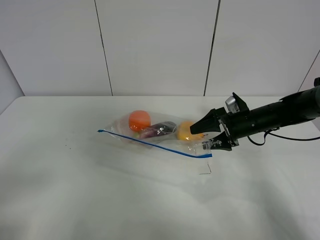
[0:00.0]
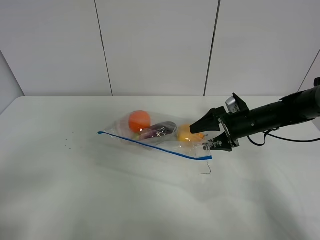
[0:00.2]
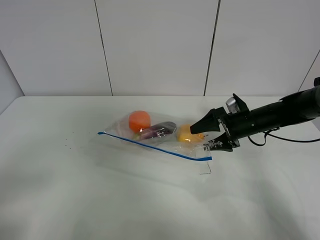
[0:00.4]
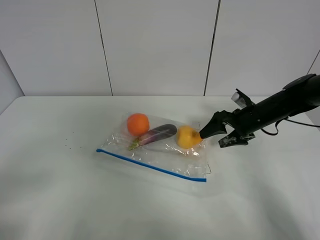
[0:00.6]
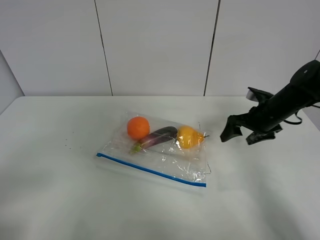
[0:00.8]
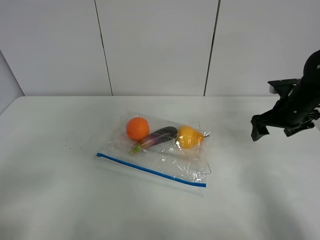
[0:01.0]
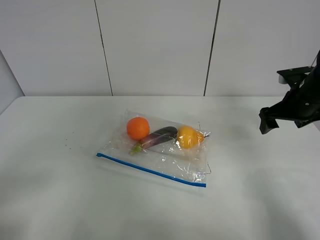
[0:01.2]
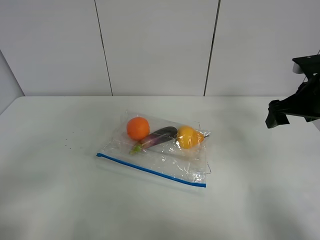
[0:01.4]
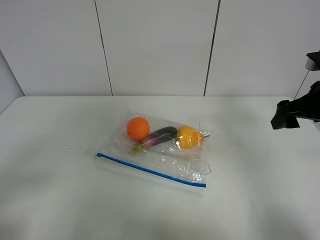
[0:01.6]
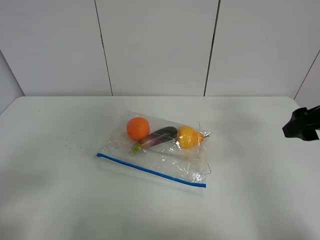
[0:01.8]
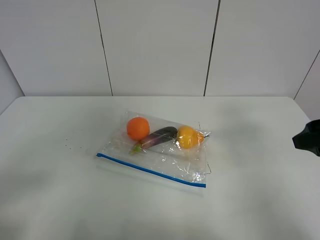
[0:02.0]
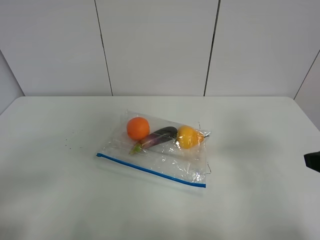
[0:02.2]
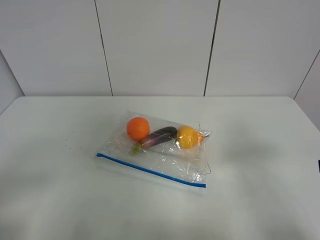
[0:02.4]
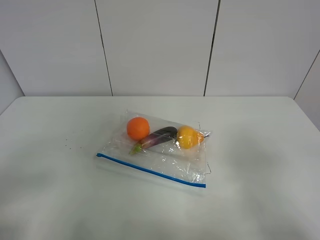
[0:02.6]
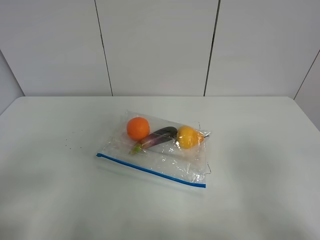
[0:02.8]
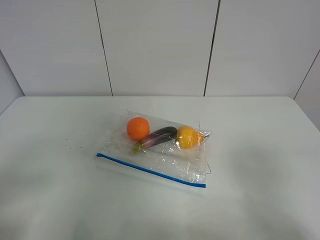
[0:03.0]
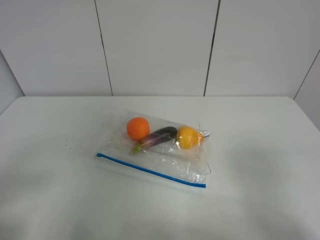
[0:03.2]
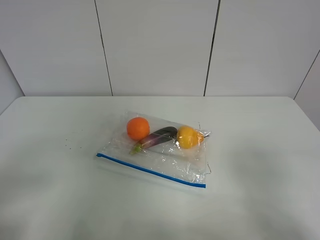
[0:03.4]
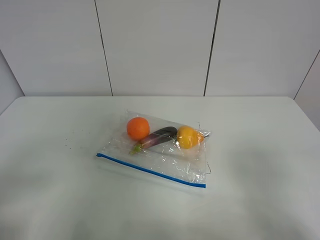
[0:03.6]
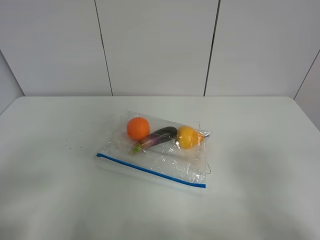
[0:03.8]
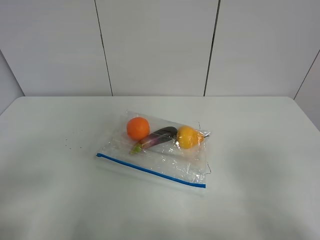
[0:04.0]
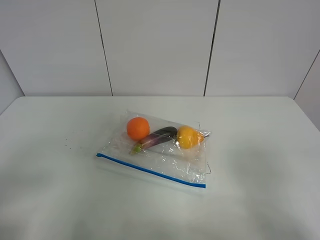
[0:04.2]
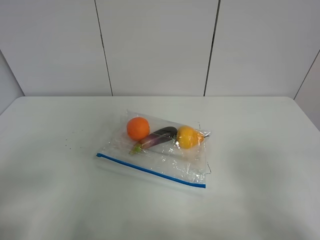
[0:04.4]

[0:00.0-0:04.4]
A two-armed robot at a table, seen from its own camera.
0:00.0 to 0:01.4: The right gripper travels upward, to the right and backward by about 15 cm.
0:01.4 to 0:03.0: The right gripper moves backward, some 30 cm.
0:03.0 to 0:04.4: The two grippers keep their place.

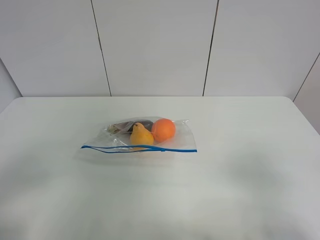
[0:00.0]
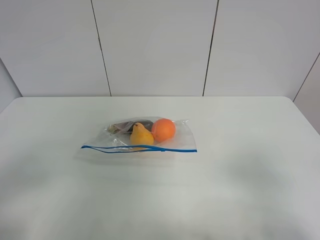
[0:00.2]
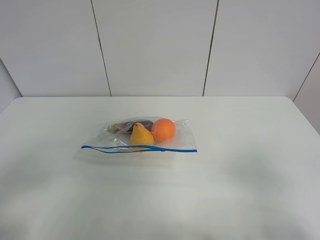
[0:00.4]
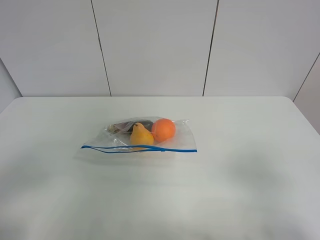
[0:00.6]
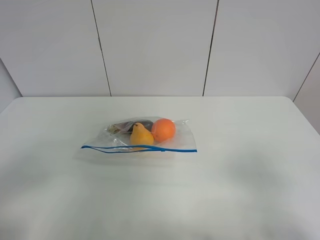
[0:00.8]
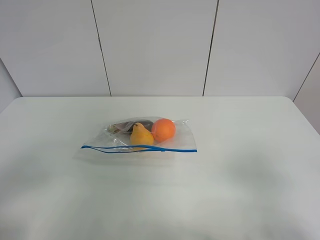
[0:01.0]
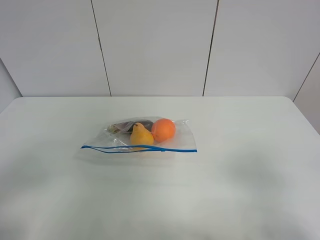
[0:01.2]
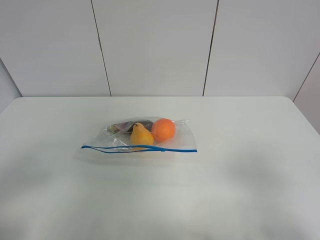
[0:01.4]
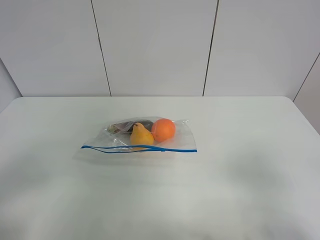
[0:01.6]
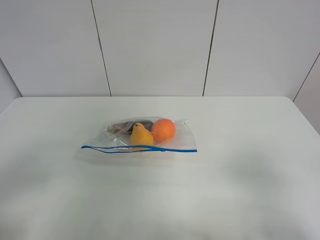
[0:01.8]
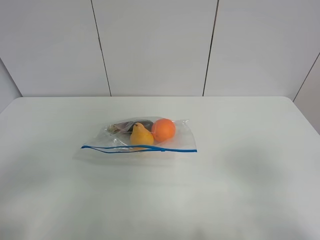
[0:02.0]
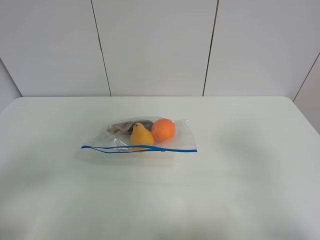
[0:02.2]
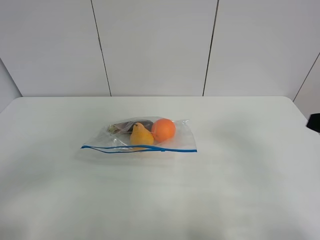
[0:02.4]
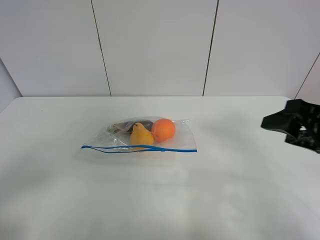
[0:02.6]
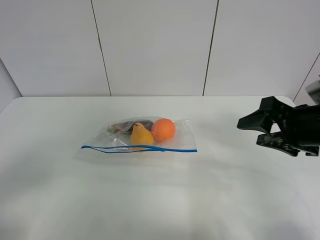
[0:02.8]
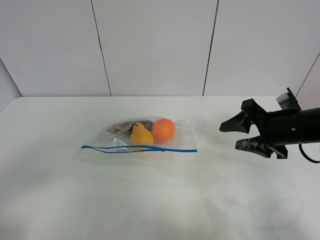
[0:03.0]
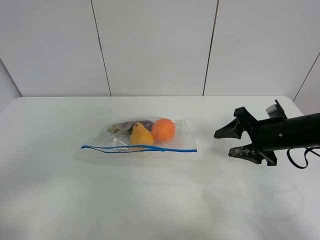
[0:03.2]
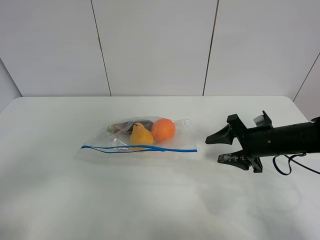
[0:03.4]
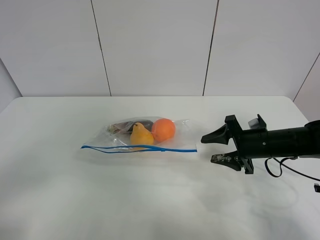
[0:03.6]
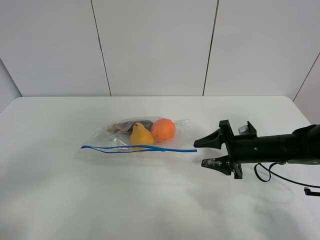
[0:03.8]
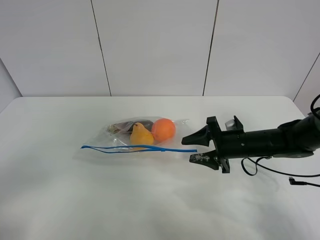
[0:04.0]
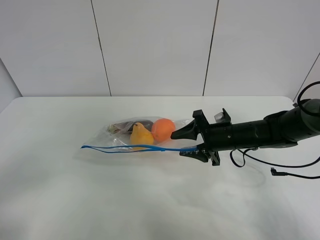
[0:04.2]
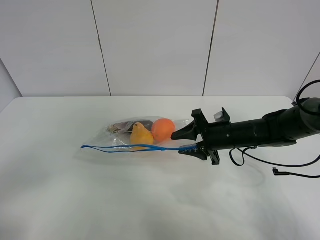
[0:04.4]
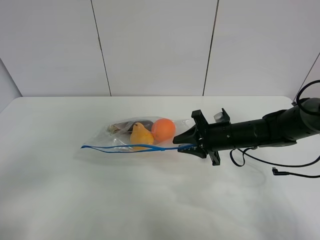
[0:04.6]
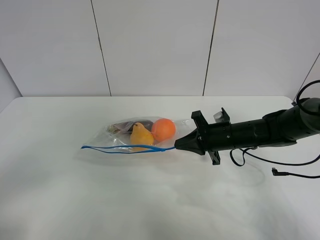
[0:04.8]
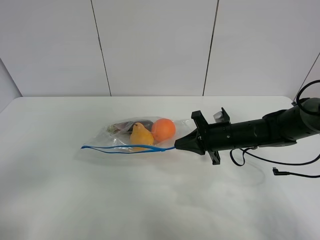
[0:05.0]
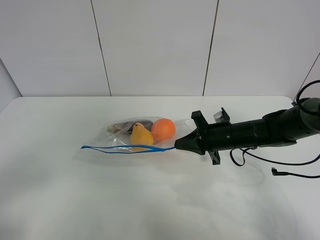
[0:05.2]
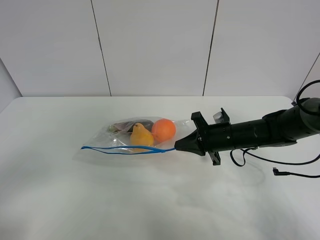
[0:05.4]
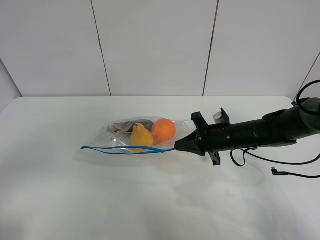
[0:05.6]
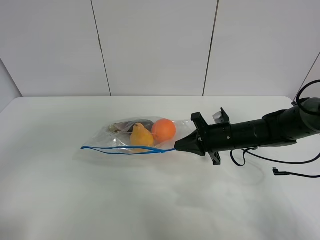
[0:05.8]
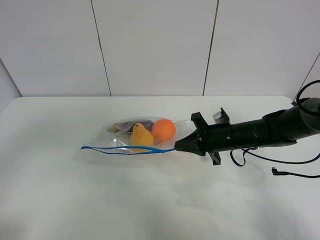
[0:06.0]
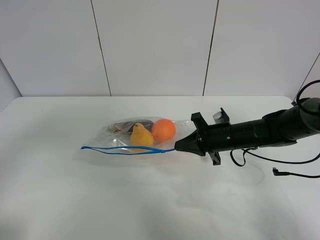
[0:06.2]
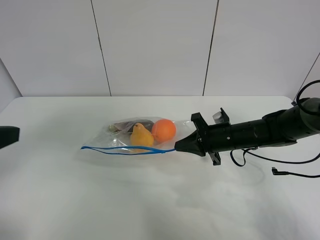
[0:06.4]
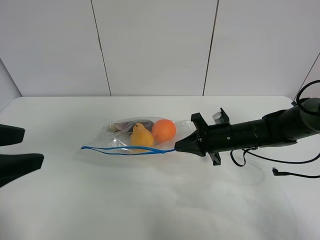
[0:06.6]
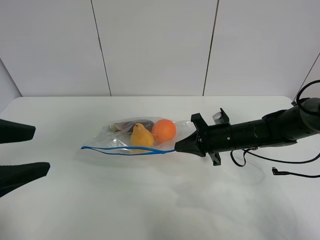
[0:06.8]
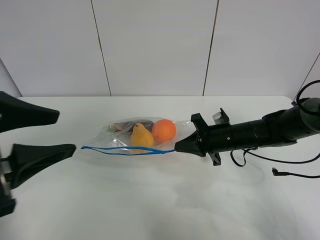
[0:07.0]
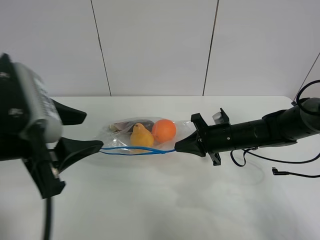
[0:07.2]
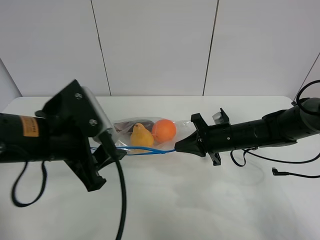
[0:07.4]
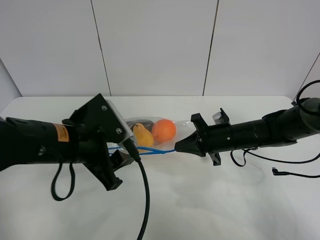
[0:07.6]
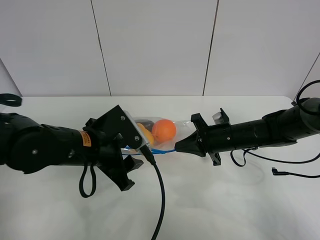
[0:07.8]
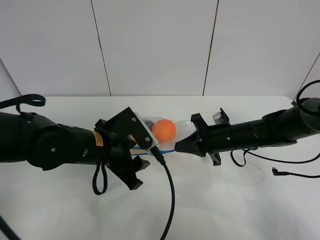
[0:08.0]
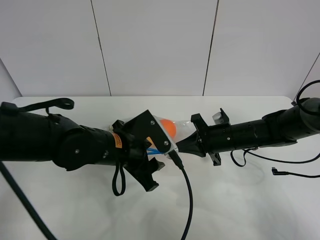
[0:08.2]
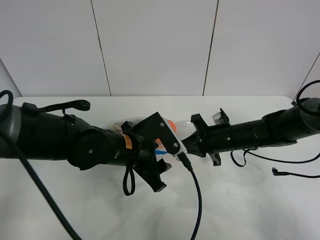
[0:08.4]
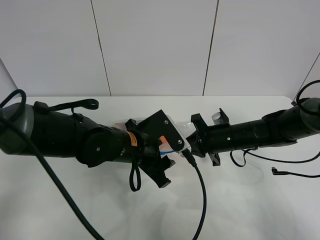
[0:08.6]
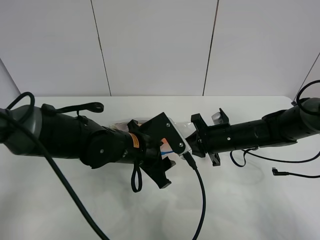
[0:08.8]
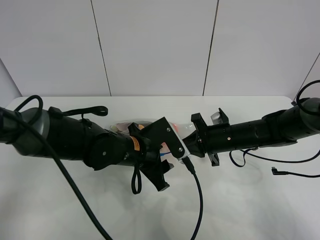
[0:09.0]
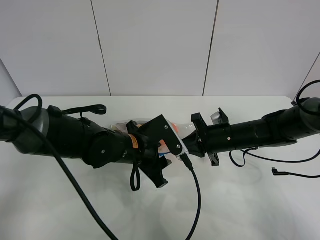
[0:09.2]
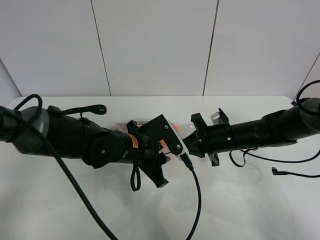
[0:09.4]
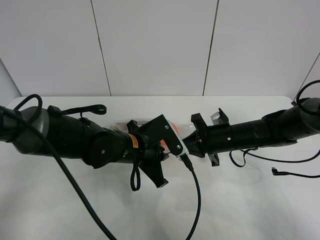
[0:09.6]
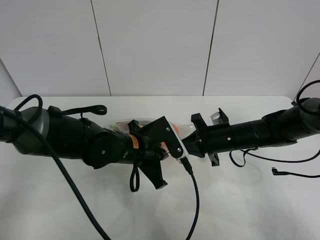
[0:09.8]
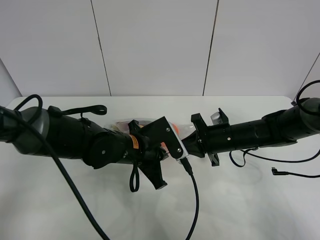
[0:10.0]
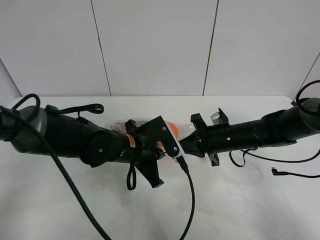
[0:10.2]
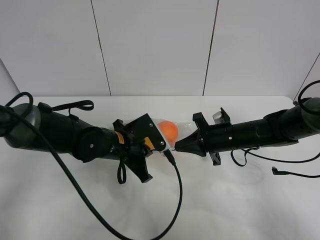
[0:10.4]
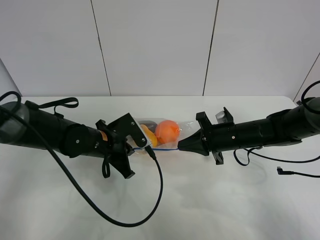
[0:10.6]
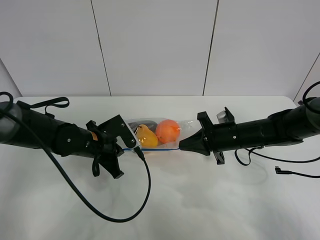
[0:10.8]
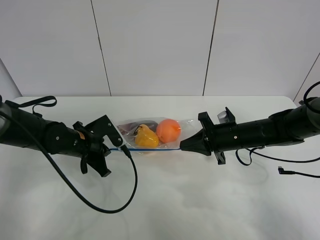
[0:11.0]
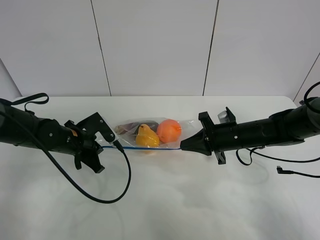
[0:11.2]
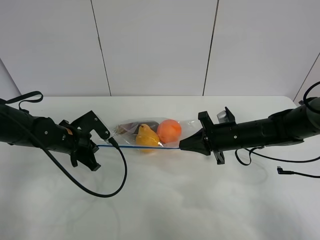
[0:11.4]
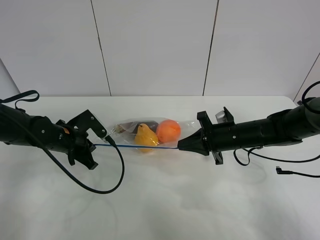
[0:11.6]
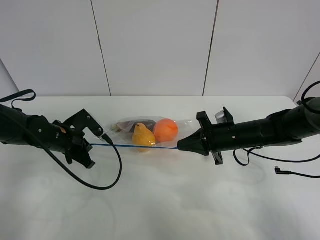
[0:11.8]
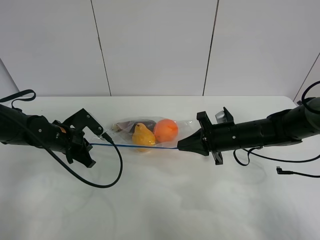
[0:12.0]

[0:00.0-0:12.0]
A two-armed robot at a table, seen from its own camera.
Step, 0:00.0 to 0:04.8: Grasp the fruit bag with right gripper.
0:00.0 to 0:01.6: The two grippers keep their place.
0:01.6 to 0:03.0: The right gripper goes roughly 25 cm forward.
0:03.0 to 0:04.4: The right gripper travels to the left, downward and forward by about 15 cm.
0:04.4 to 0:06.0: The right gripper closes its fingers, while the left gripper is displaced forward and upward by roughly 10 cm.
0:06.0 to 0:07.6: The left gripper goes about 25 cm to the right, forward and downward.
0:07.6 to 0:09.0: The left gripper shifts some 10 cm to the right, downward and forward.
0:09.0 to 0:10.4: The left gripper closes up.
0:10.4 to 0:12.0: The left gripper goes approximately 15 cm to the left.

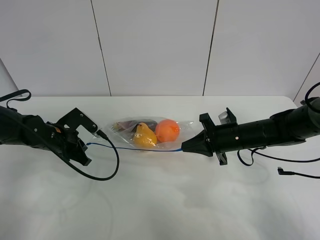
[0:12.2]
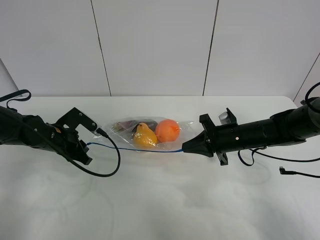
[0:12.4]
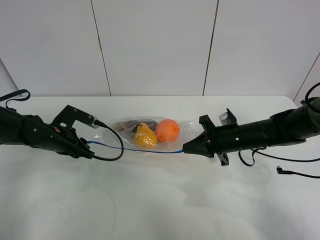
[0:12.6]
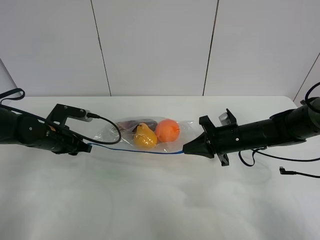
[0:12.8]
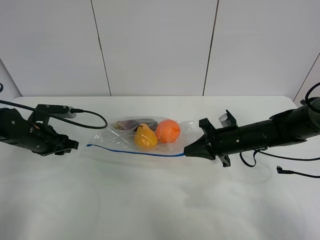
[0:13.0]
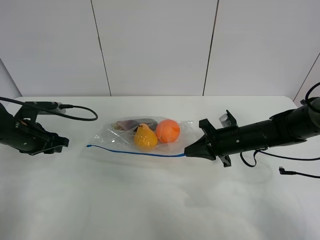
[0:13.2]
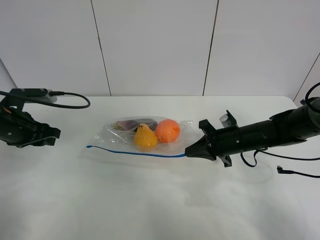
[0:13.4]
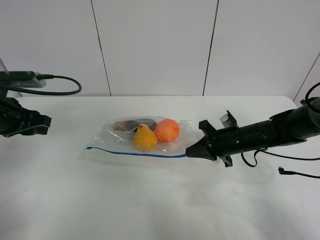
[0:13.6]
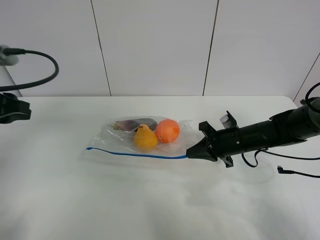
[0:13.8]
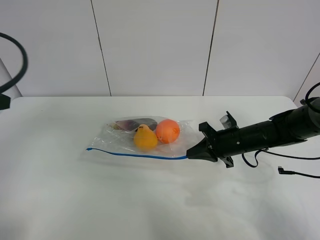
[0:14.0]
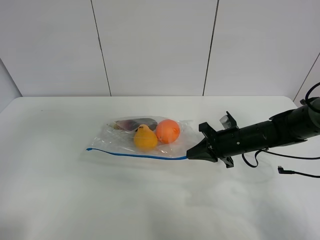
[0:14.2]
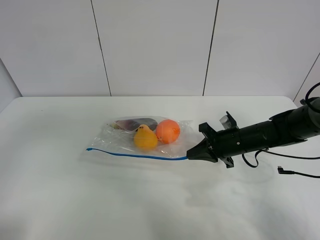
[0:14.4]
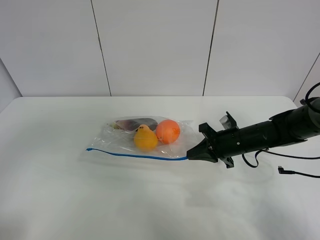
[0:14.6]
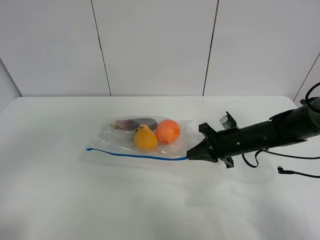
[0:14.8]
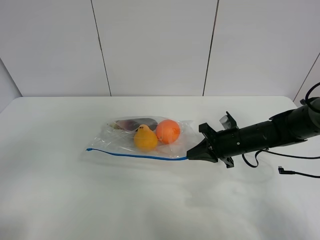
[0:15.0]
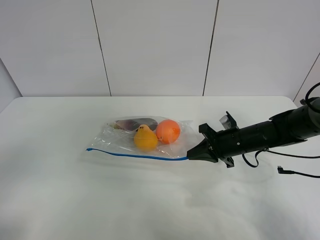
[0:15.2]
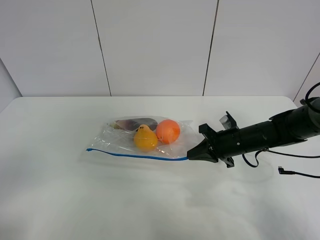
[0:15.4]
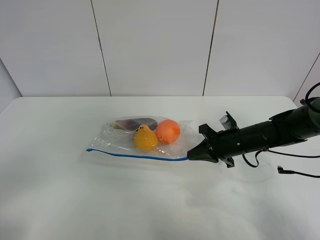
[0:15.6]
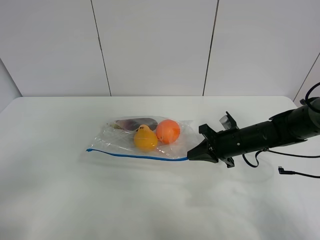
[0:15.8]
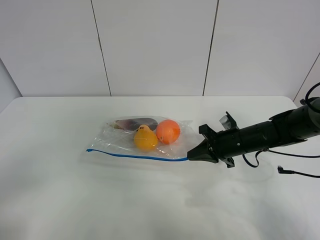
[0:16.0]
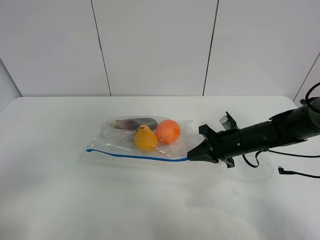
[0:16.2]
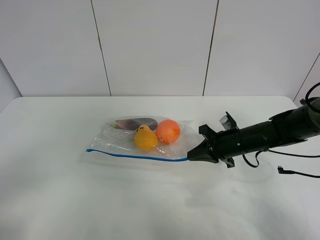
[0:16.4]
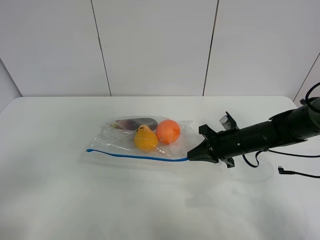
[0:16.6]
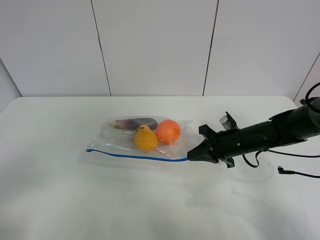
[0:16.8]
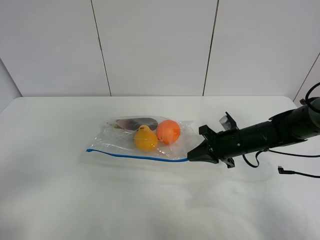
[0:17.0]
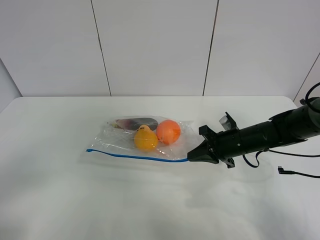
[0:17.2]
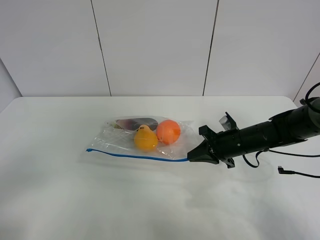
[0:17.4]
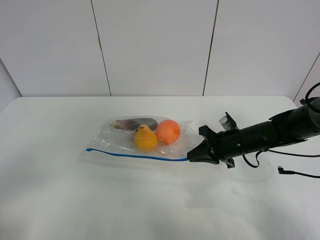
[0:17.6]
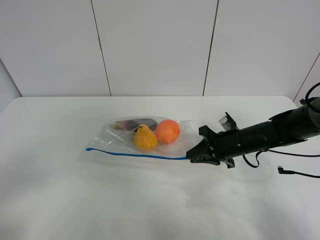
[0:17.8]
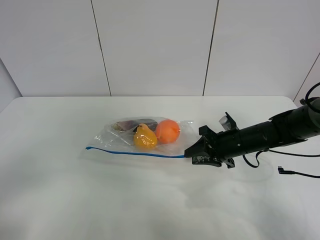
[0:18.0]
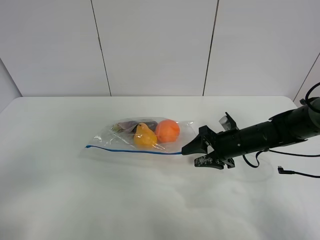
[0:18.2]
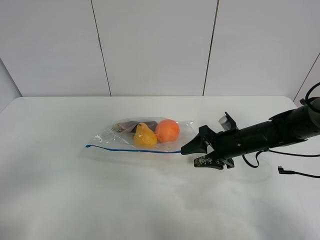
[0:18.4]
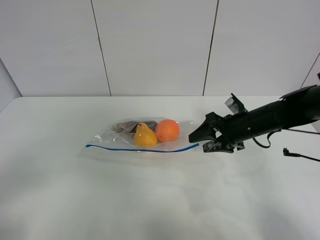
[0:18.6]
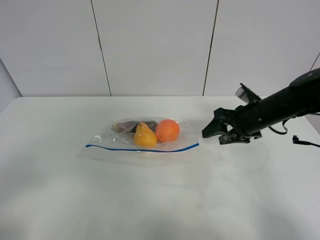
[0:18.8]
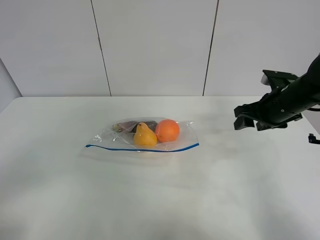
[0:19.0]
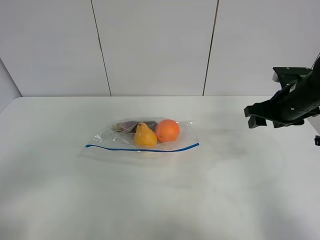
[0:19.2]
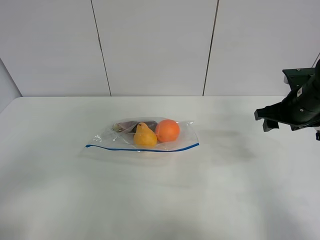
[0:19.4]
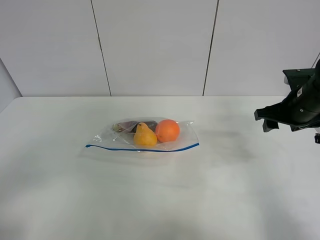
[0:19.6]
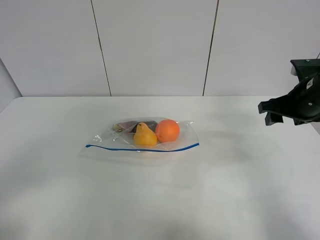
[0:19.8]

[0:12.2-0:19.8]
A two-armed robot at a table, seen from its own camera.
0:12.2 to 0:13.8: The left gripper shifts approximately 20 cm upward and backward, and opens its fingers.
0:13.8 to 0:15.2: The left gripper travels backward by roughly 25 cm.
0:15.2 to 0:16.8: The left gripper moves downward, approximately 5 cm.
0:16.8 to 0:18.2: The right gripper opens up.
0:18.2 to 0:19.8: The right gripper heads upward and to the right, covering about 15 cm.
